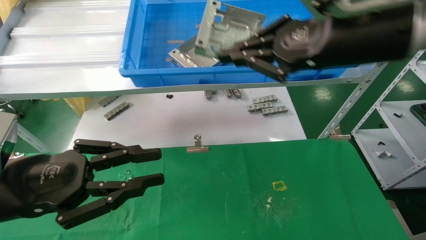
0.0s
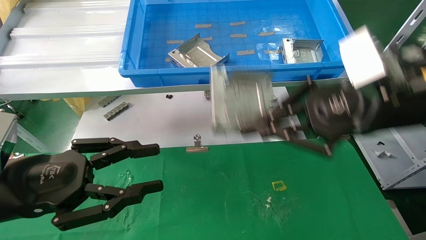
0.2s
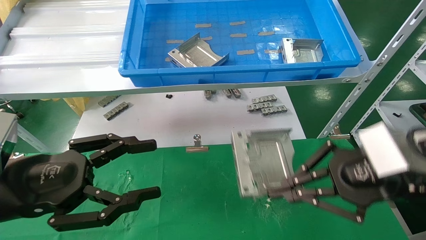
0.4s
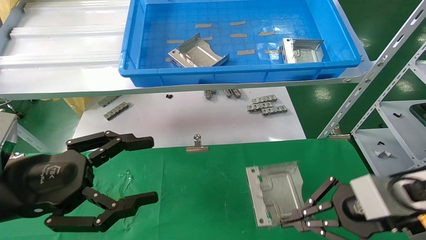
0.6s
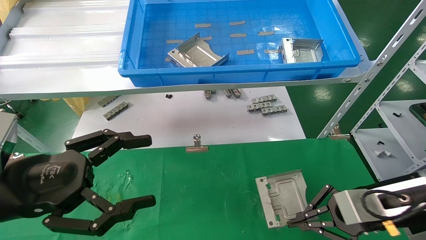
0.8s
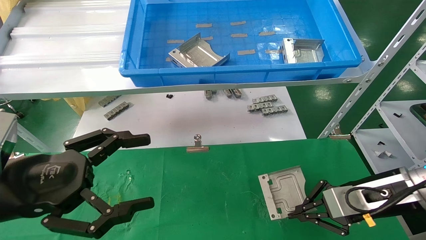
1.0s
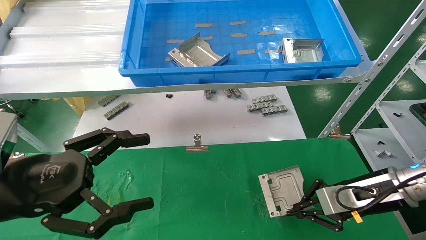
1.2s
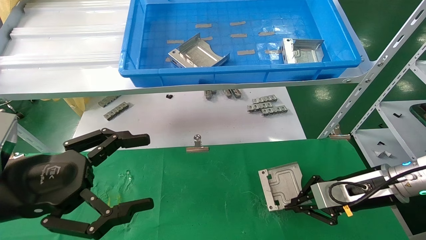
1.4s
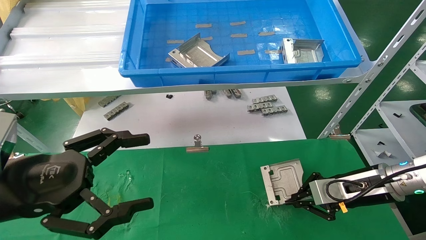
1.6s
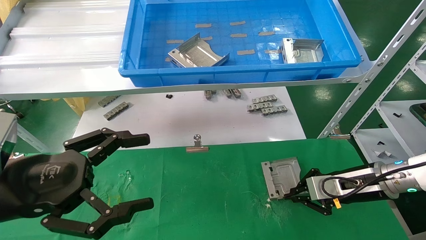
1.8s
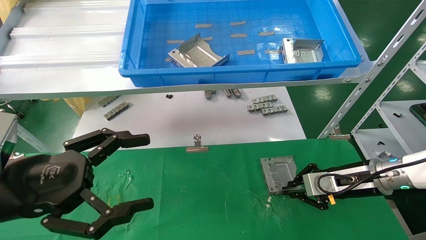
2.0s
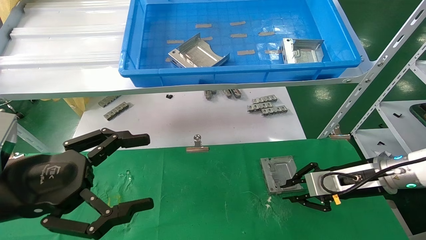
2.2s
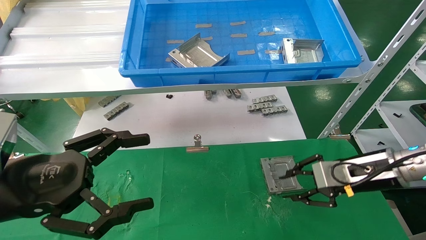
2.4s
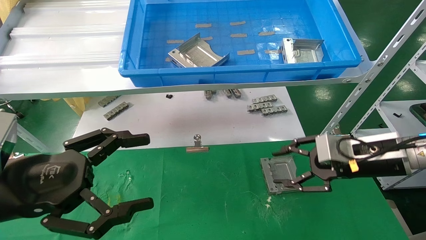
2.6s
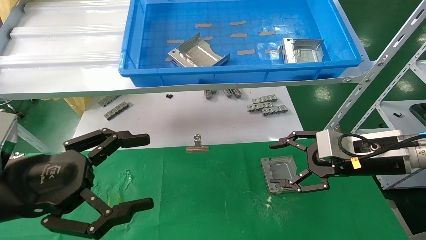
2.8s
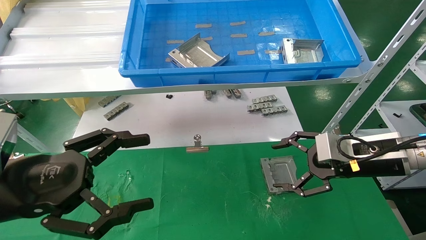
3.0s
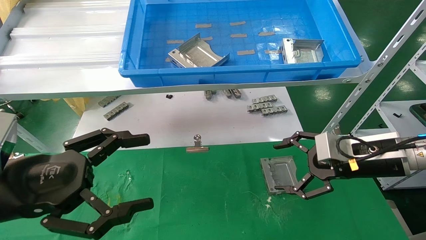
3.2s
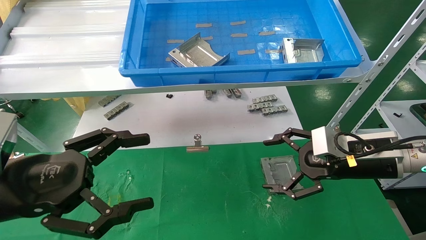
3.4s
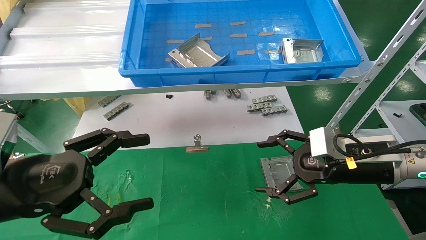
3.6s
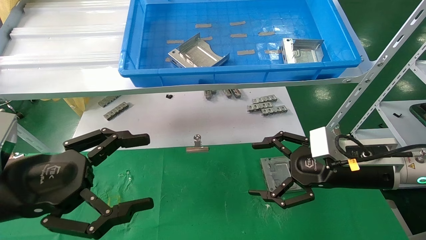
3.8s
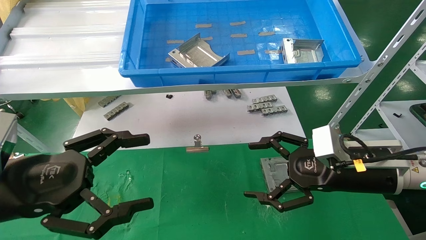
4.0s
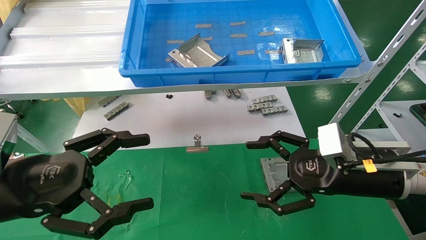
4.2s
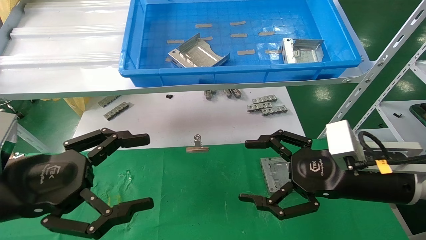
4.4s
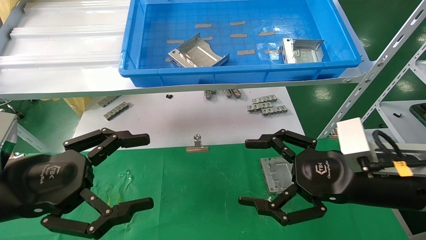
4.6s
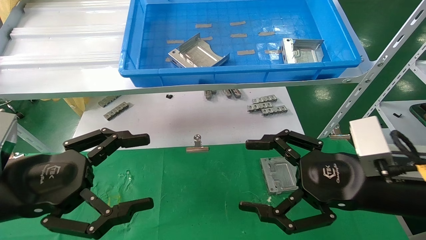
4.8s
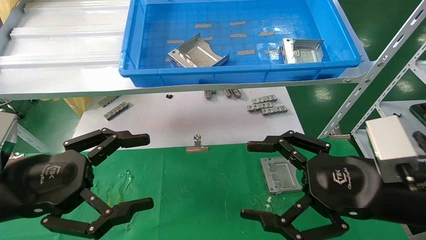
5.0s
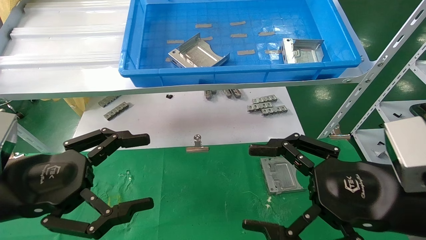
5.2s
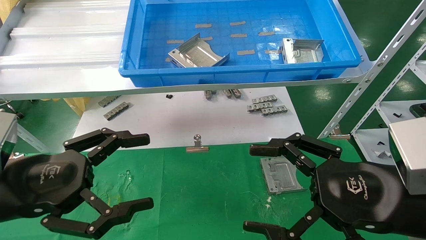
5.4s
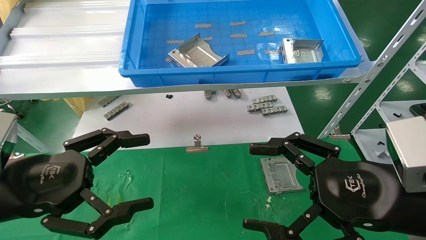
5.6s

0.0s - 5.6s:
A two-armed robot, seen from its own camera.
Task of the whole recording: use the mechanical arm to pick up the parts and place them on the table.
Step, 0.0s - 2.6s: Place the hard drive bracket into the box.
0.0s - 1.4s: The right gripper moves downward and to the right, some 25 cm. The left gripper opens up.
1.4s - 2.8s: The right gripper is displaced upward by roughly 5 cm, and opens.
2.8s - 4.2s: The right gripper travels backward by roughly 5 cm, and opens up.
4.2s - 5.6s: The right gripper shifts some 10 cm backward.

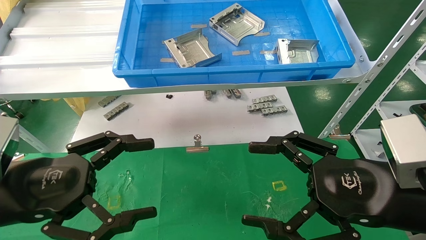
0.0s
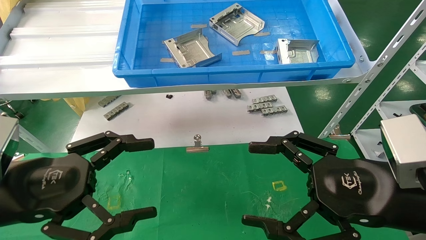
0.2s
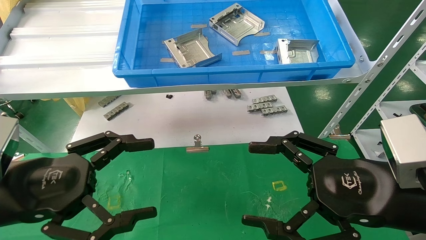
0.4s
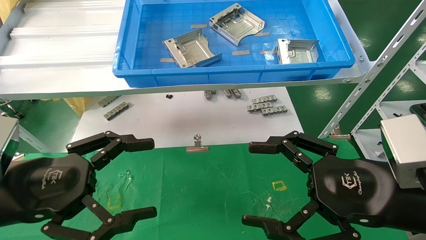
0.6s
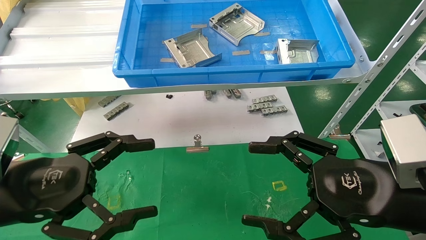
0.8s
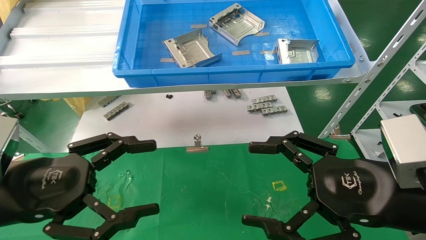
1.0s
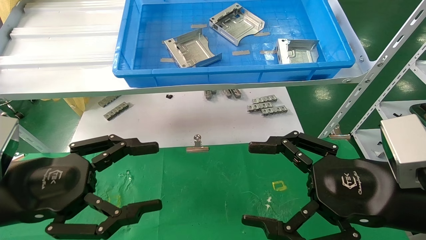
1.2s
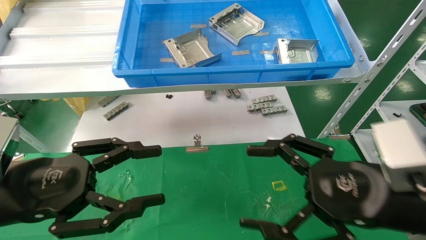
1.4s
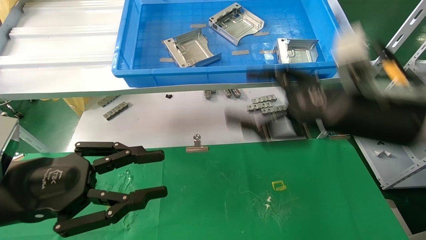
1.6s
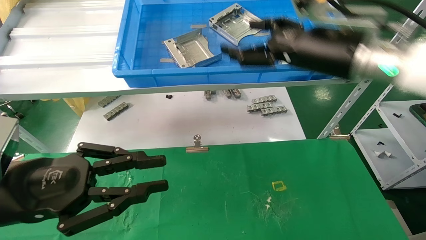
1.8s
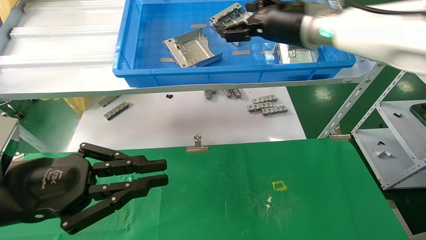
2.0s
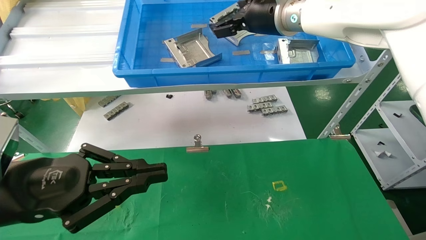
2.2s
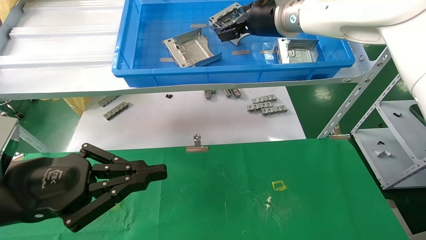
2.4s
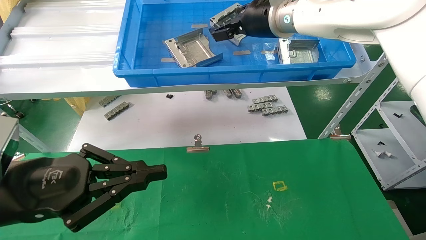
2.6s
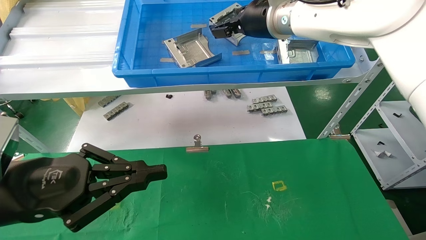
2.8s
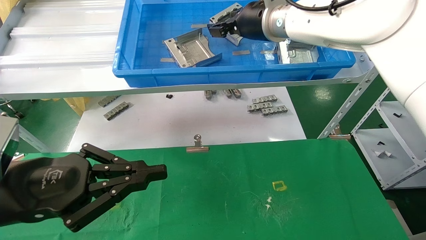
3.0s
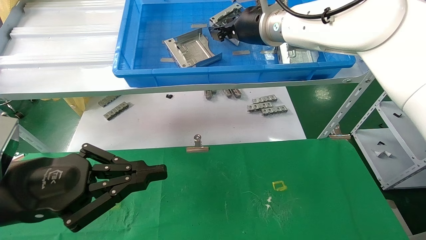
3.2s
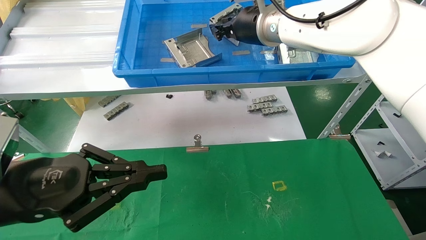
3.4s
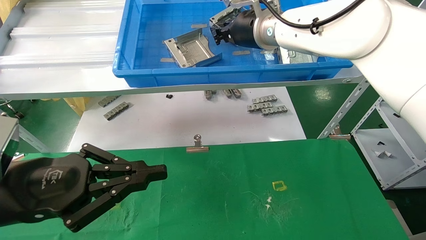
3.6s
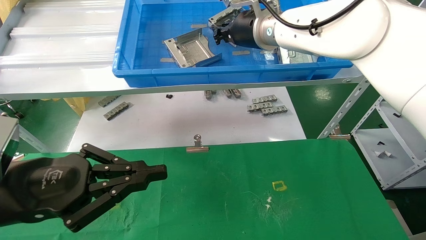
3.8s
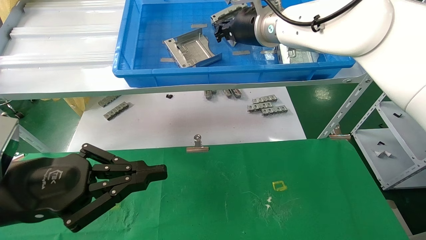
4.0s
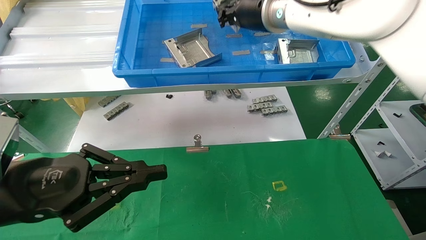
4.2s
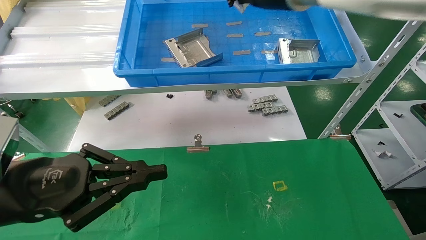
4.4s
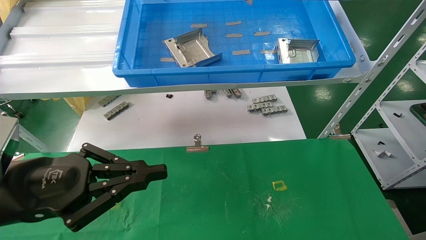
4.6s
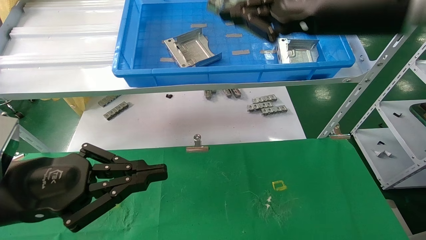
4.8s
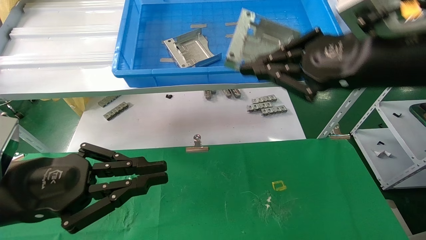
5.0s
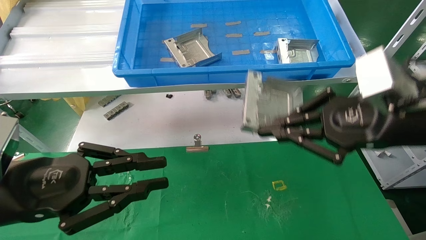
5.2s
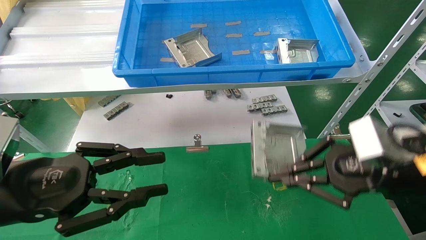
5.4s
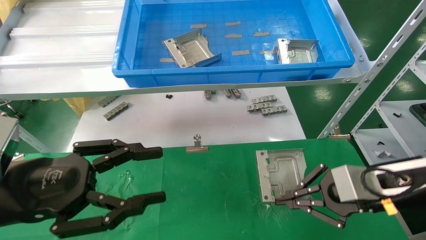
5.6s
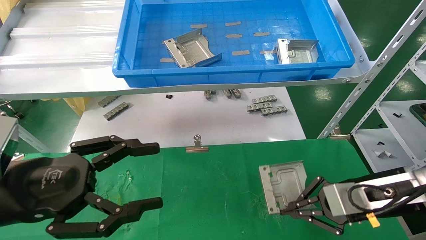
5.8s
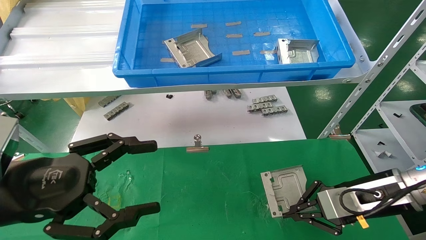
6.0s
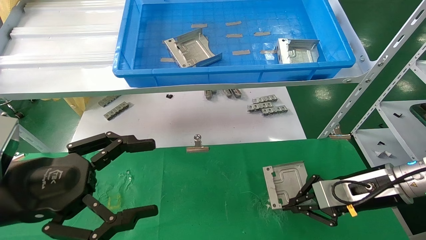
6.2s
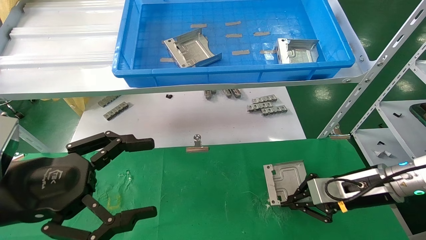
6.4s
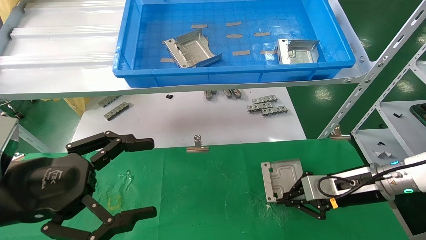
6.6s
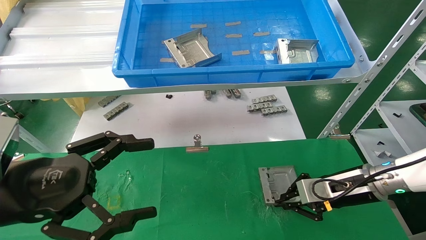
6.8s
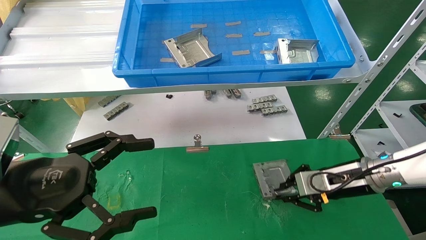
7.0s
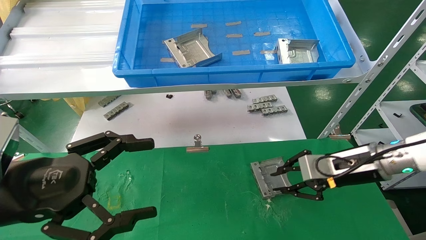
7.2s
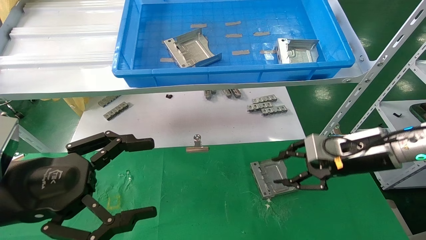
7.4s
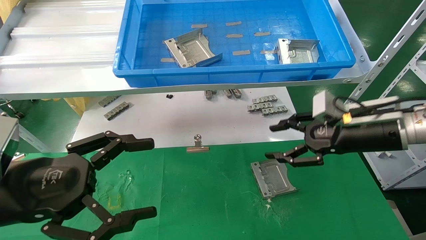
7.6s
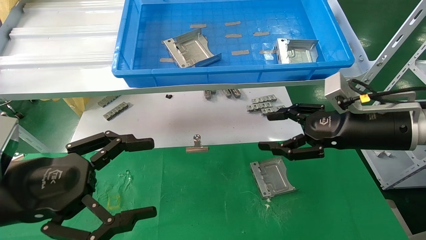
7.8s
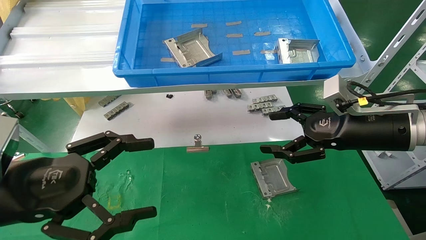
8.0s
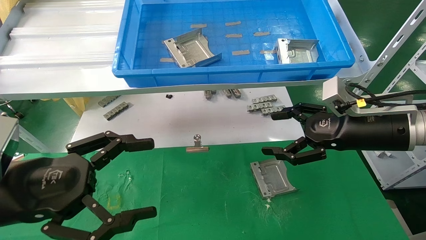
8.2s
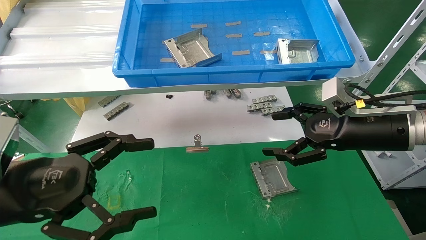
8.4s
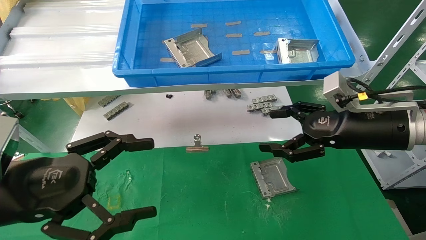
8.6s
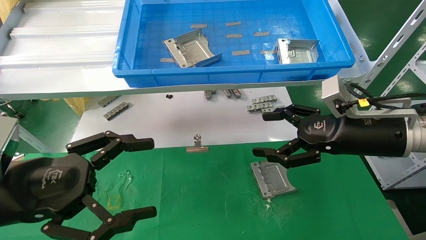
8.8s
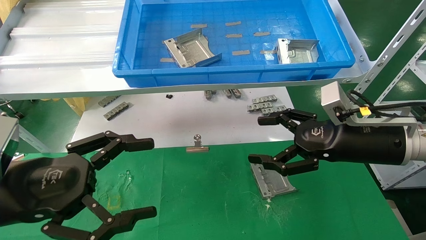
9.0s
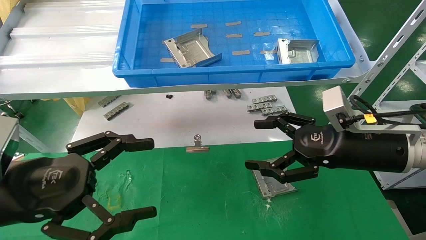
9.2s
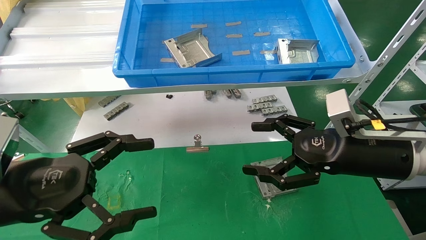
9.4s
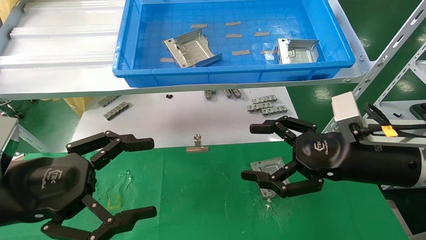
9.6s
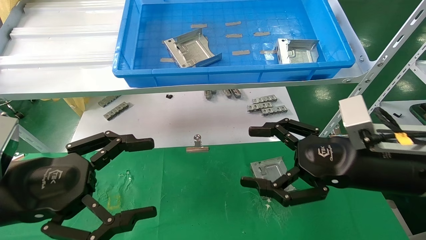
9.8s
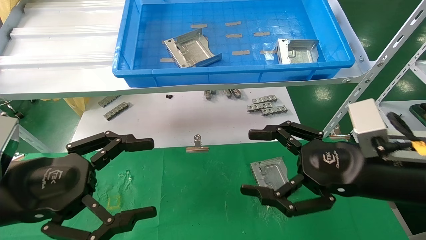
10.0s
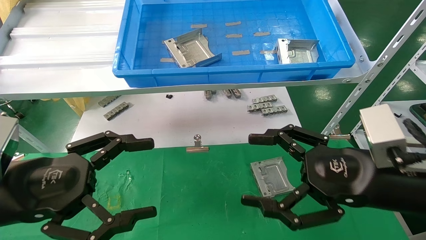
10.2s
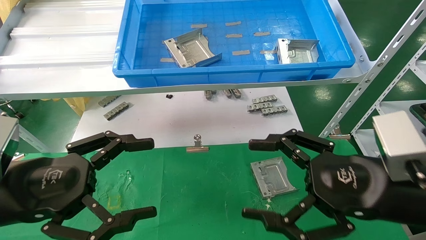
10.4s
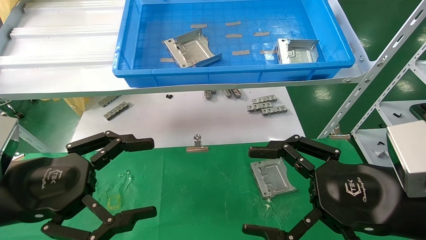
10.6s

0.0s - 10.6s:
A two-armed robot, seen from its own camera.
Task of the whole recording: use the mechanical arm to pick up the parts and place them on the table.
Step, 1.6s - 4.4s: Pick up the hard drive bracket from the feeding area.
Step, 4.6s - 7.2s: Place the hard drive bracket into the box.
0.0s - 1.6s: The left gripper closes, while the right gripper travels forward and upward by some 10 cm.
1.6s - 3.0s: The left gripper closes up; the right gripper is displaced forward, to the left and upward by approximately 25 cm.
3.0s - 4.6s: The right gripper is displaced backward and to the right by approximately 15 cm, and closes.
4.6s - 6.0s: The left gripper opens up. The right gripper heads downward and to the right, covering approximately 35 cm.
6.0s - 7.6s: The right gripper shifts some 10 cm upward, and opens.
7.6s - 9.0s: The right gripper opens its fingers.
9.0s - 10.6s: The right gripper moves backward, roughly 10 cm.
